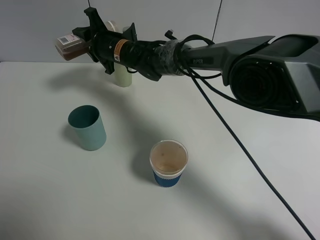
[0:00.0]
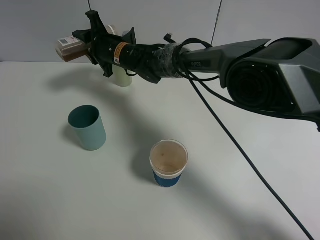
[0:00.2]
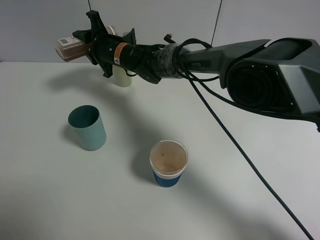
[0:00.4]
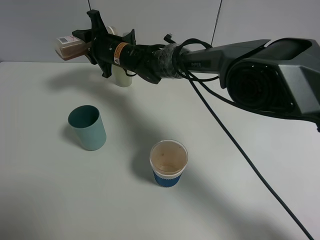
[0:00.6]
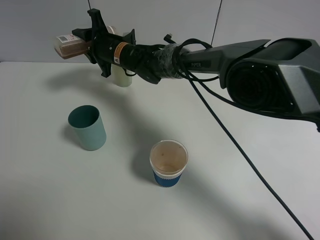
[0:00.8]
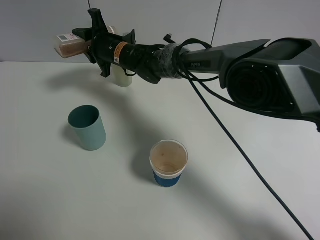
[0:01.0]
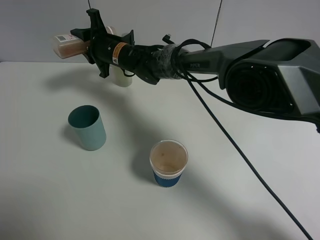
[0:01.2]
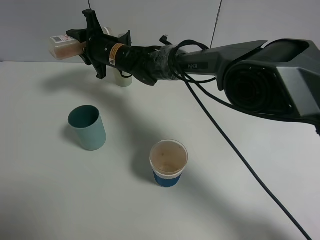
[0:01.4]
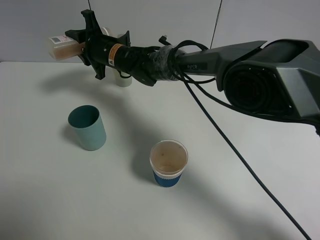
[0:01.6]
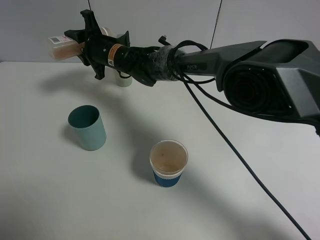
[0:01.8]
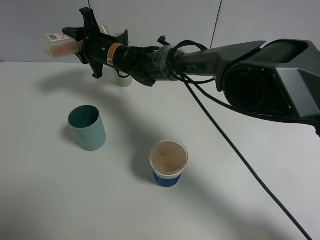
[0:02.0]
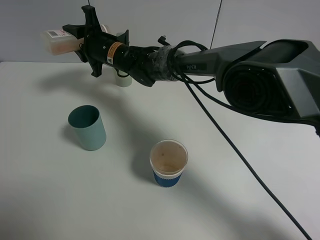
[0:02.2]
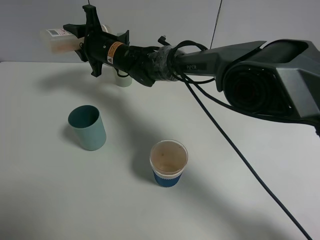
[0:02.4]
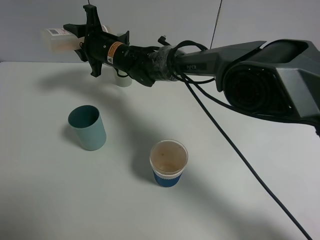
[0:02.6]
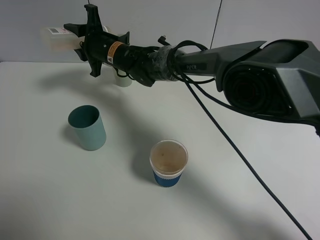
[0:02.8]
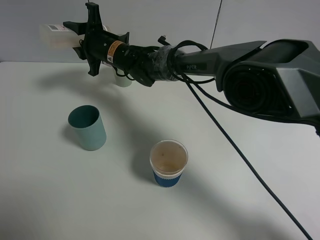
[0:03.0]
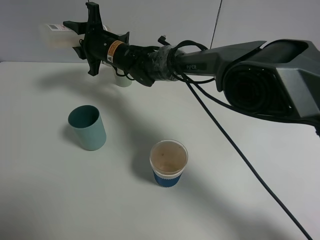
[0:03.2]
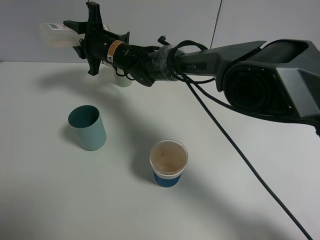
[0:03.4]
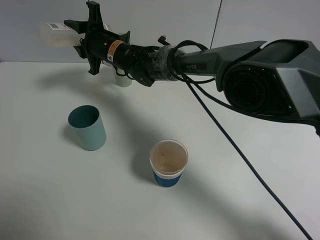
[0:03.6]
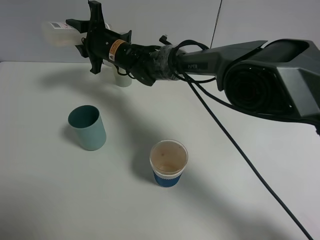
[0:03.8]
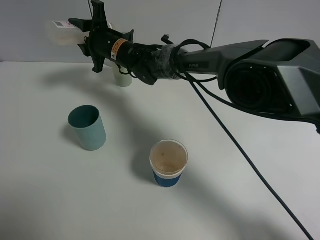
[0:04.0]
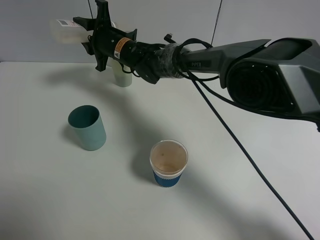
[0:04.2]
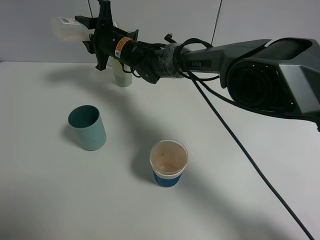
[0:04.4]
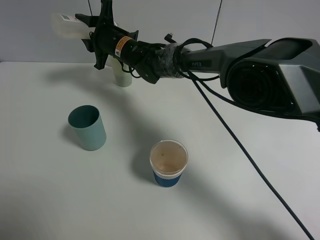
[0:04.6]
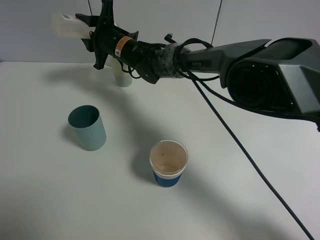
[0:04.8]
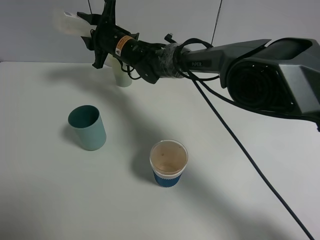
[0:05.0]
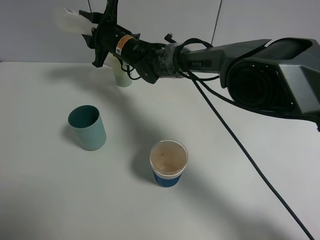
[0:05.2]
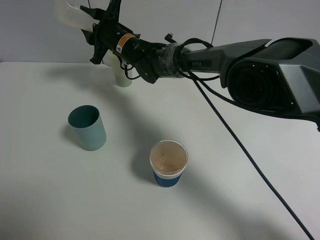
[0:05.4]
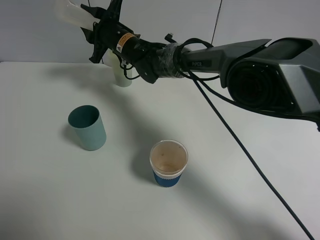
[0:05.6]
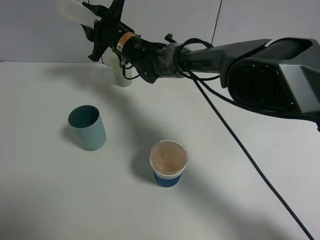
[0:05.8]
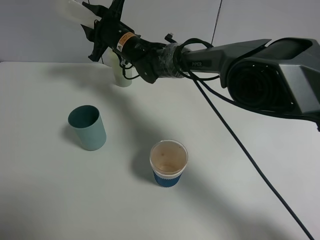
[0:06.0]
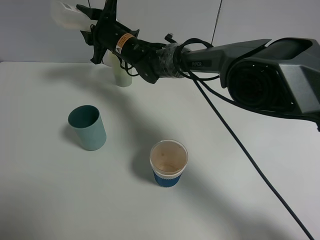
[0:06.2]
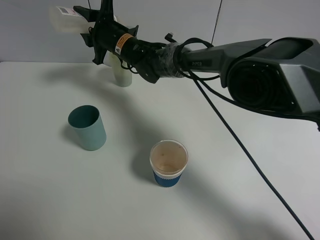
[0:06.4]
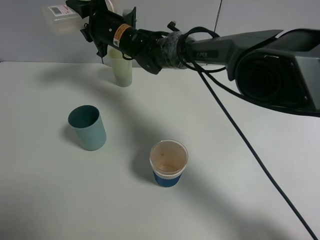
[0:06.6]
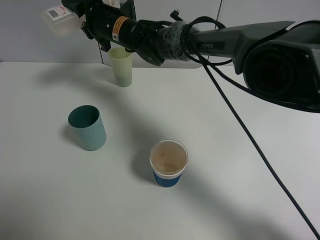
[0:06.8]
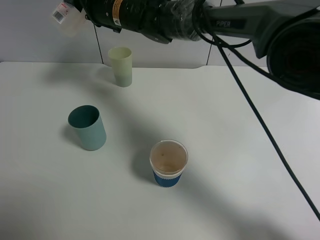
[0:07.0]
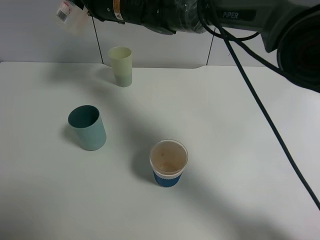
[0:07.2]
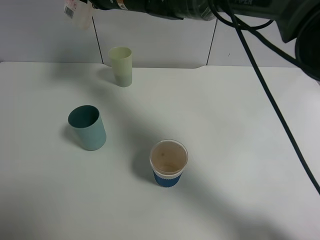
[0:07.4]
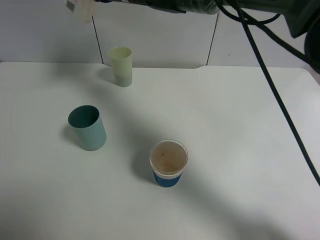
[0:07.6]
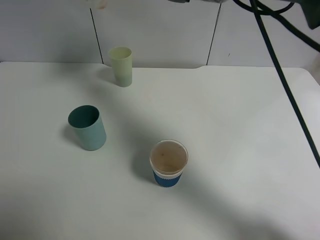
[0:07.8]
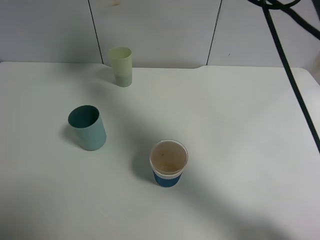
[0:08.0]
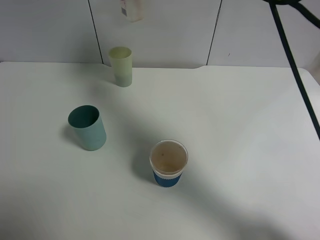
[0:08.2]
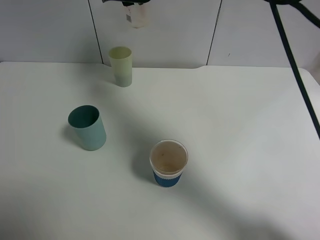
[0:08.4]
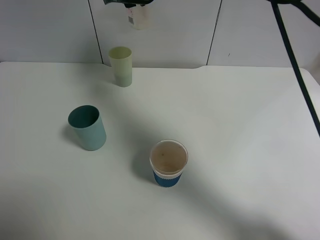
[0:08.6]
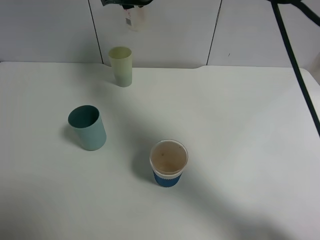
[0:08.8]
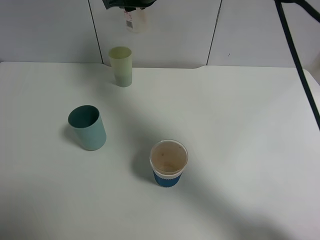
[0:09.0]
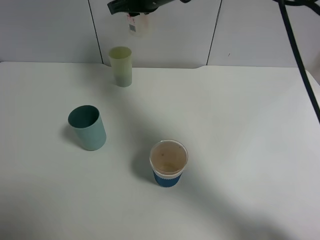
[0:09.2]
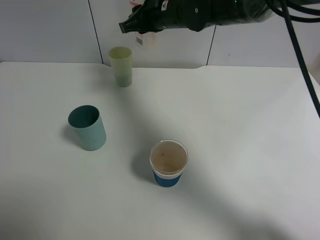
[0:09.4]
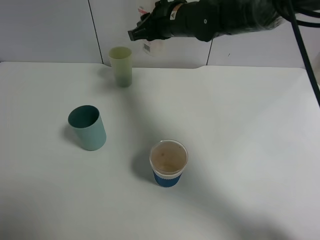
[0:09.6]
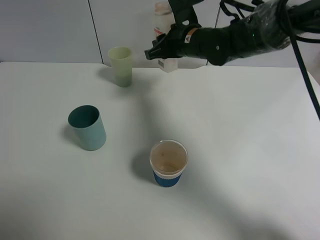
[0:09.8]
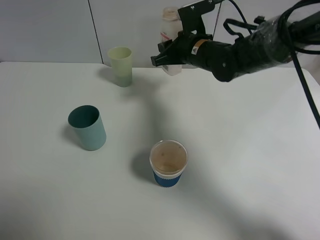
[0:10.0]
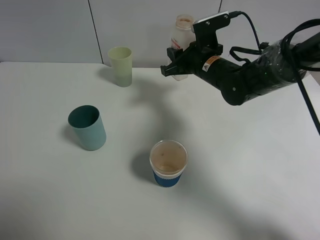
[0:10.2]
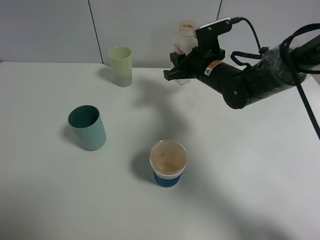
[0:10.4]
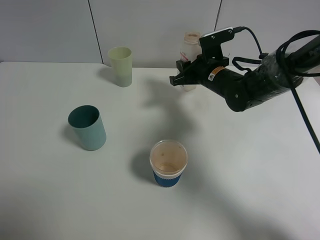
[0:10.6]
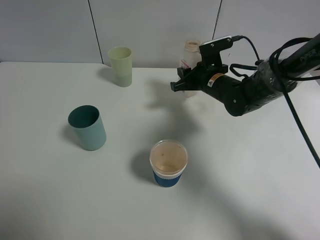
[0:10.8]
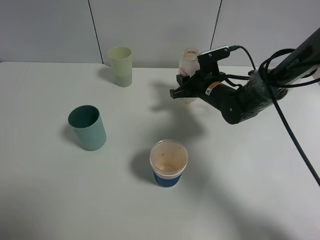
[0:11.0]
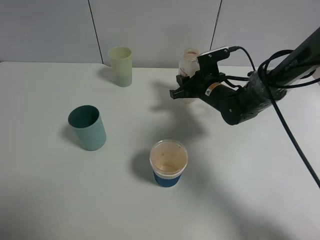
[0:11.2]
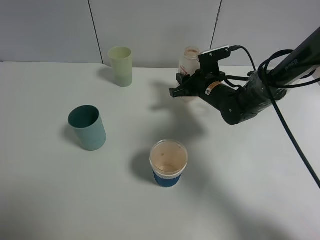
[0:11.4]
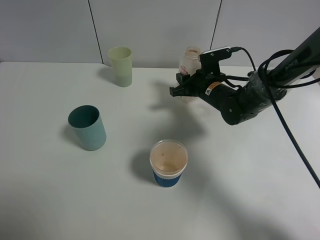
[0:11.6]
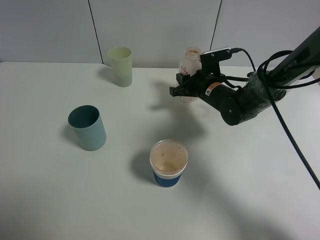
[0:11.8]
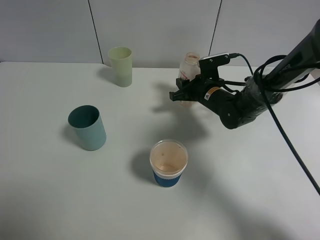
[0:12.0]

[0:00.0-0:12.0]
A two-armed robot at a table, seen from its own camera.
Task of the whole recording: use a gripper to hold the bottle of the drink and pour it into a random cup.
Step, 0:00.0 to 0:06.4: Pour the cranberry juice into the White Plastic Cup with the right gripper.
0:00.0 to 0:03.0: There are only small adjustments of the grippers.
0:03.0 to 0:04.4: The grippers stay close to where they were, moving slightly.
0:04.4 to 0:06.0: The grippers make only small movements.
0:06.0 to 0:07.6: The right gripper shifts roughly 10 cm upward.
0:07.6 to 0:09.0: The right gripper heads to the right, covering about 5 cm.
0:09.0 to 0:10.4: The right gripper shifts some 20 cm downward and to the right.
0:10.4 to 0:12.0: The right gripper heads downward, covering roughly 5 cm.

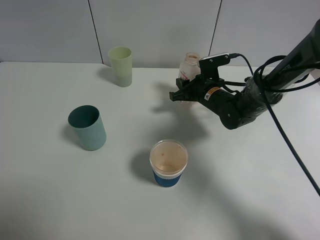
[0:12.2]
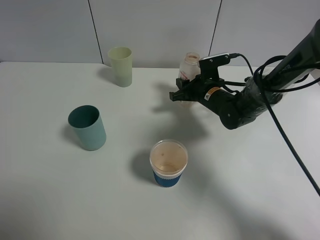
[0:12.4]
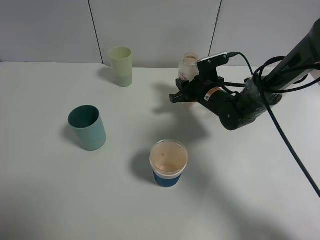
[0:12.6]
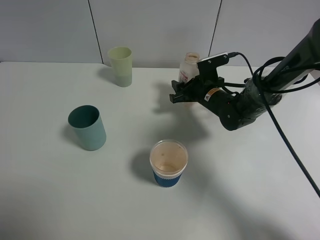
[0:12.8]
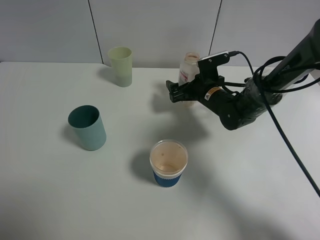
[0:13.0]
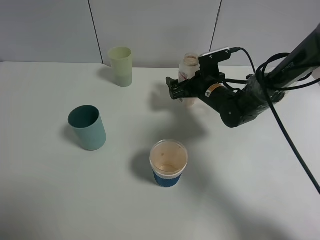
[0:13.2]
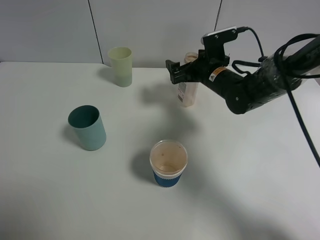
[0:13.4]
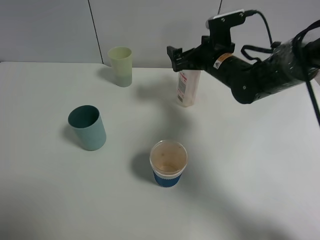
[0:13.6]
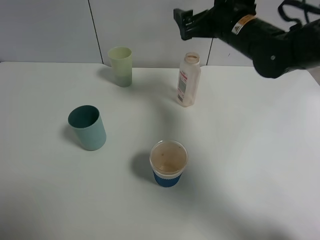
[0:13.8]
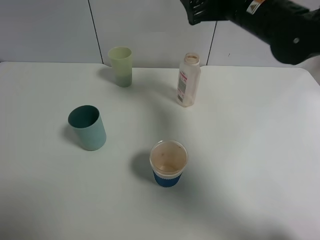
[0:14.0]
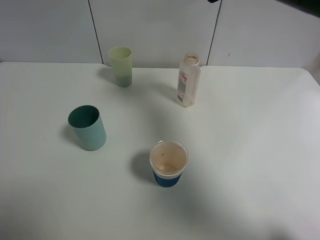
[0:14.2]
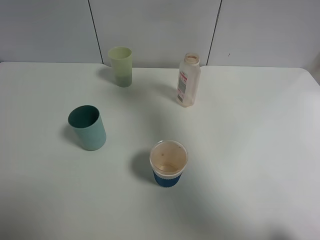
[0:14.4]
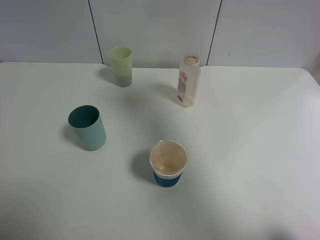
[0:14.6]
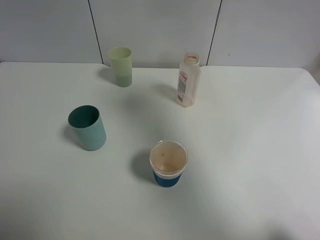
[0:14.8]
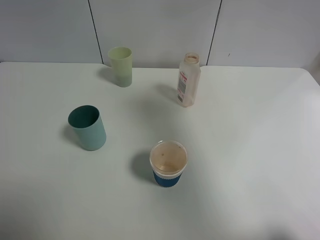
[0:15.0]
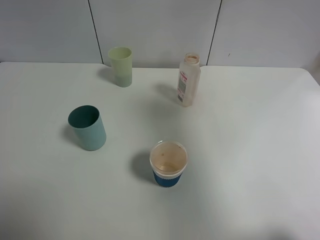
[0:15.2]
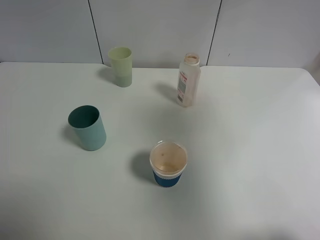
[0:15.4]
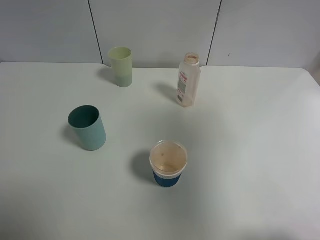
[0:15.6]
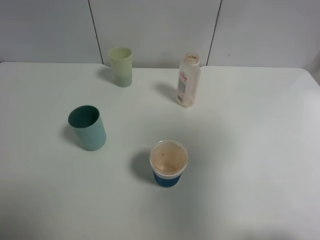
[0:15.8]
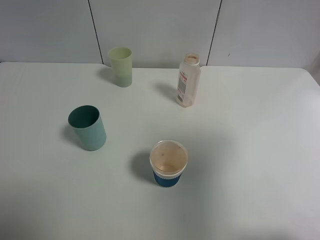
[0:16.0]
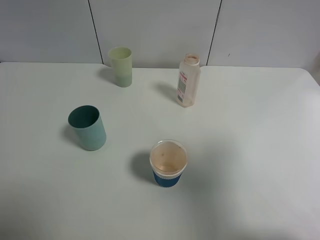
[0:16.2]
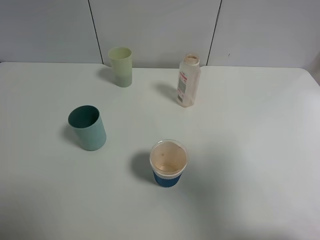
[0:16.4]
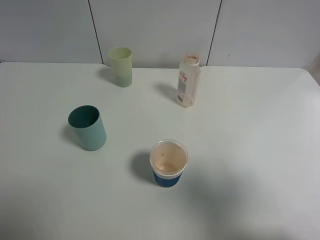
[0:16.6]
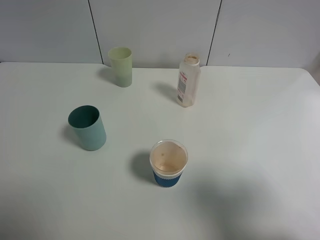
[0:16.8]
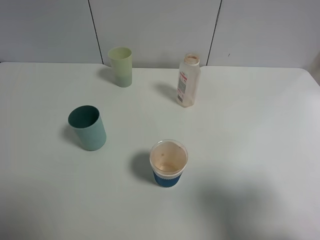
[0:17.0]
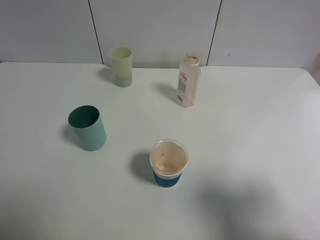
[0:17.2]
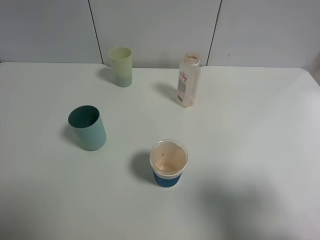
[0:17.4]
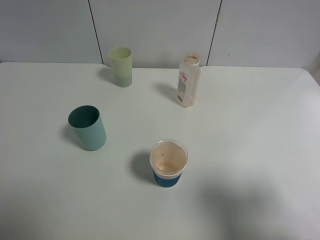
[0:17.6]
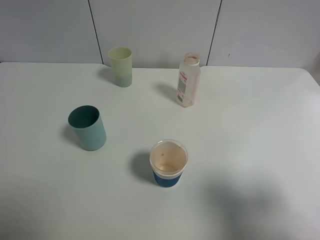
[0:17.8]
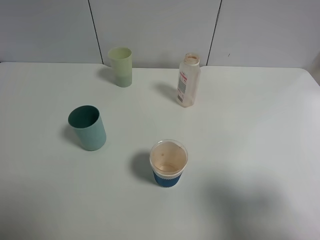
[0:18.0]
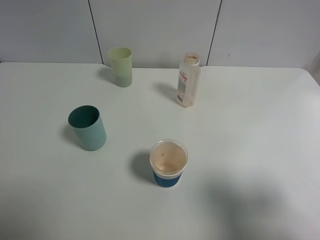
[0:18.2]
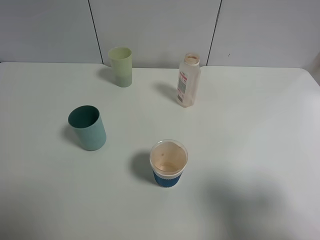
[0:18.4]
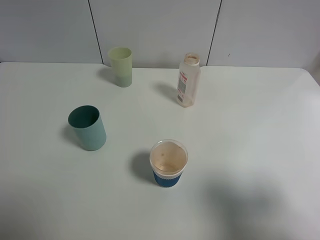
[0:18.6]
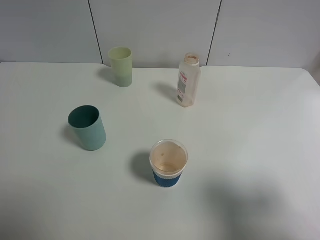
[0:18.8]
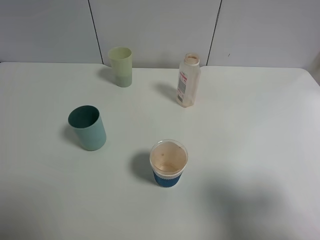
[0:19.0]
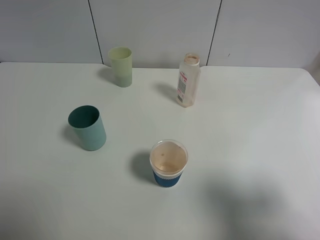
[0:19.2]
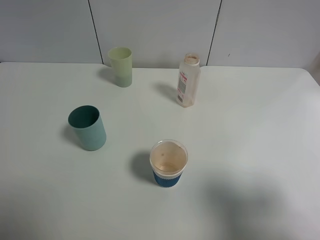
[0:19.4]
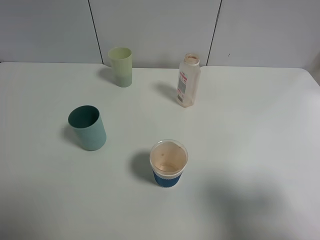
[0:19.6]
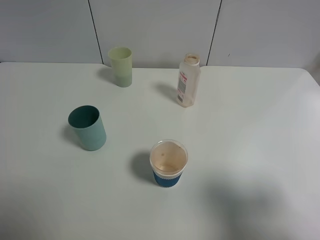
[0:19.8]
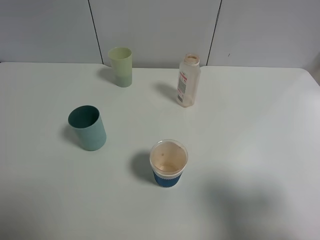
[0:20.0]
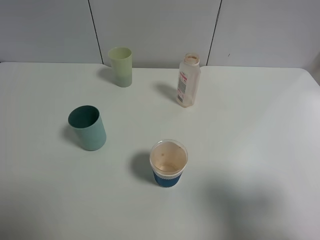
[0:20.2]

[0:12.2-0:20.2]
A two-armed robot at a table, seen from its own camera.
Task of the whole recording: use a gripper to hold the bottle of the drink and pour it into a random cup.
0:12.2 to 0:13.8: The right gripper goes approximately 20 cm upward, and opens.
0:13.8 to 0:15.4: The right gripper heads backward, upward and to the right, covering about 30 cm.
0:15.4 to 0:17.0: The right gripper is displaced downward and backward by roughly 20 cm.
0:18.6 to 0:20.2: The two grippers keep their place.
